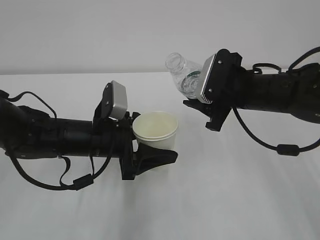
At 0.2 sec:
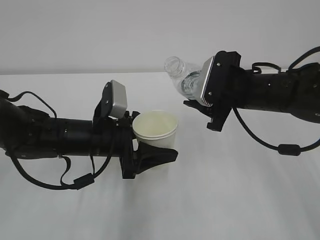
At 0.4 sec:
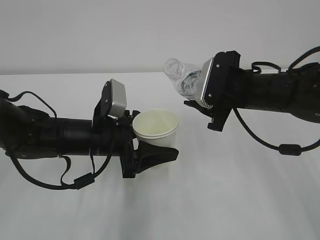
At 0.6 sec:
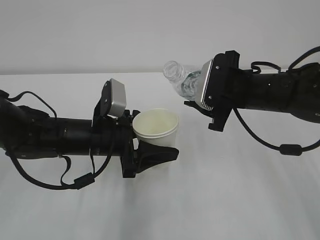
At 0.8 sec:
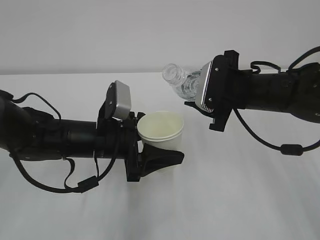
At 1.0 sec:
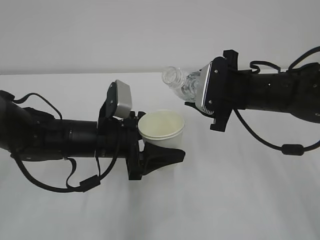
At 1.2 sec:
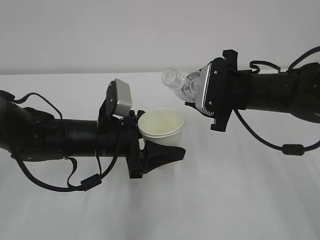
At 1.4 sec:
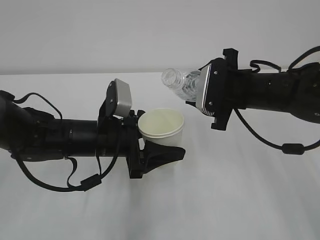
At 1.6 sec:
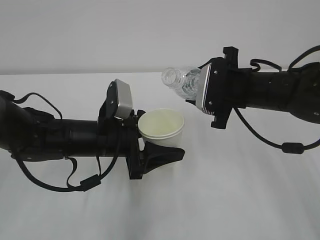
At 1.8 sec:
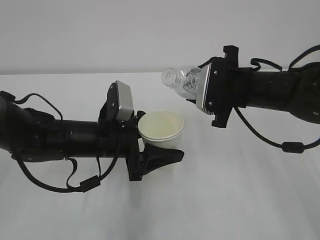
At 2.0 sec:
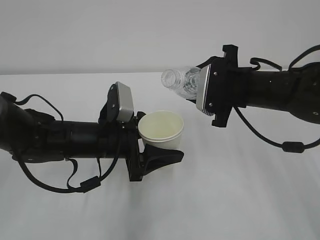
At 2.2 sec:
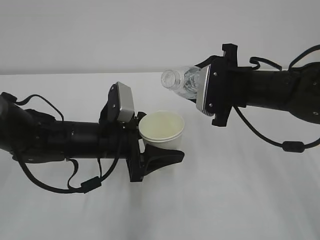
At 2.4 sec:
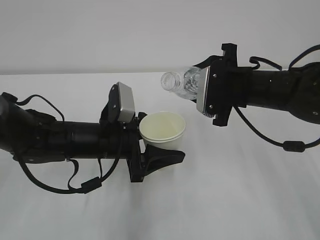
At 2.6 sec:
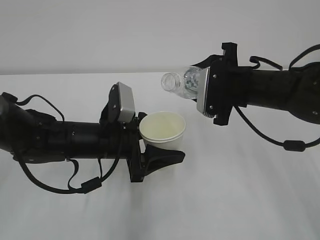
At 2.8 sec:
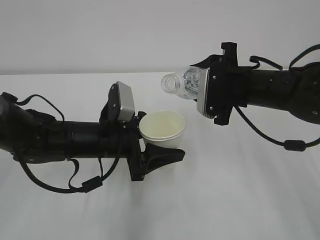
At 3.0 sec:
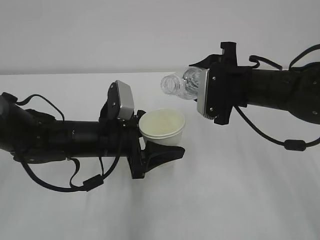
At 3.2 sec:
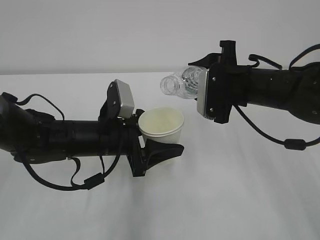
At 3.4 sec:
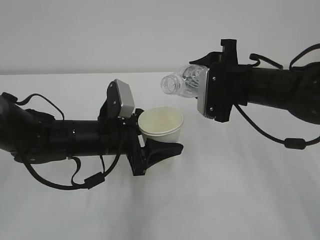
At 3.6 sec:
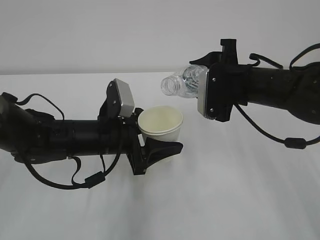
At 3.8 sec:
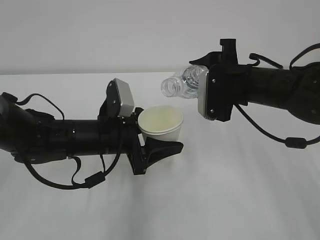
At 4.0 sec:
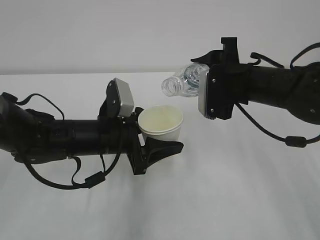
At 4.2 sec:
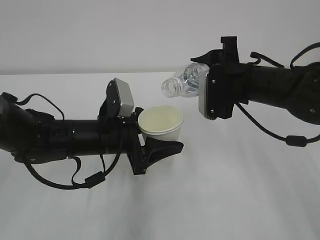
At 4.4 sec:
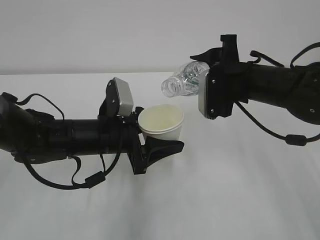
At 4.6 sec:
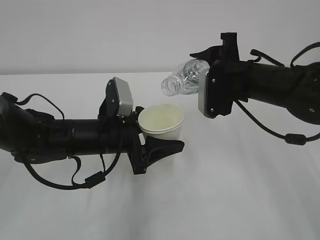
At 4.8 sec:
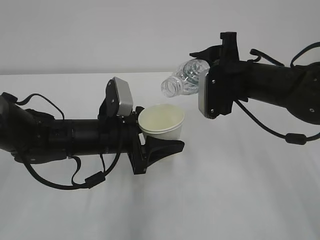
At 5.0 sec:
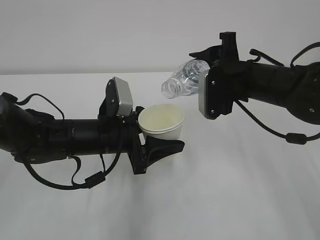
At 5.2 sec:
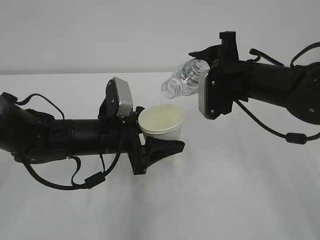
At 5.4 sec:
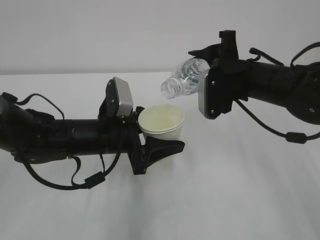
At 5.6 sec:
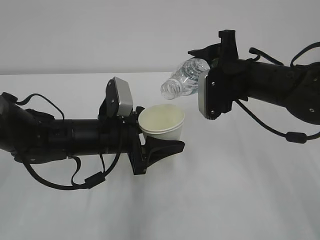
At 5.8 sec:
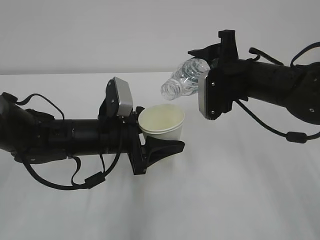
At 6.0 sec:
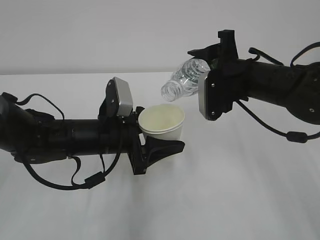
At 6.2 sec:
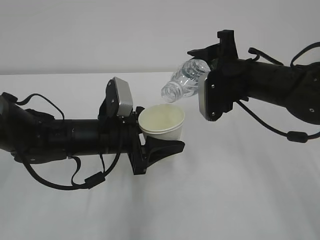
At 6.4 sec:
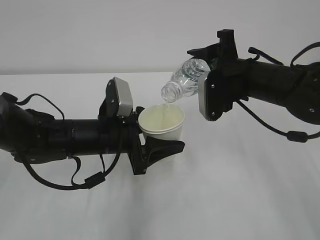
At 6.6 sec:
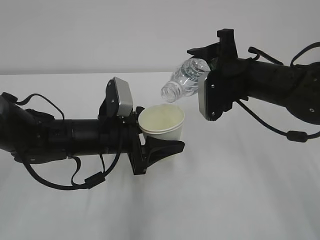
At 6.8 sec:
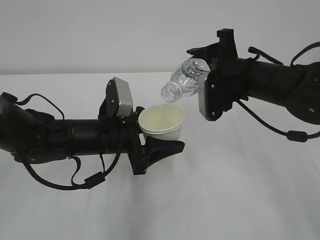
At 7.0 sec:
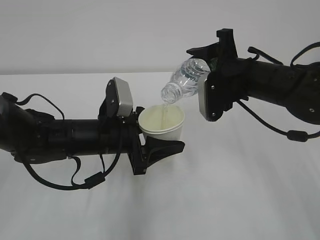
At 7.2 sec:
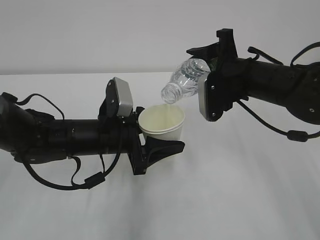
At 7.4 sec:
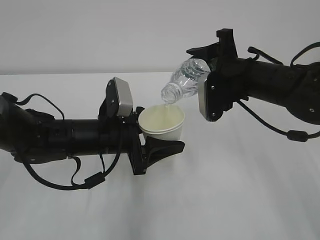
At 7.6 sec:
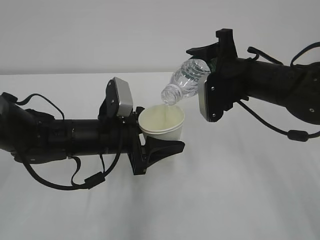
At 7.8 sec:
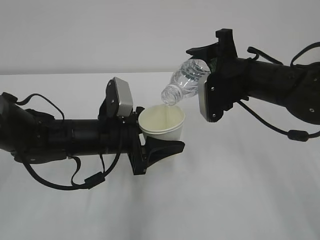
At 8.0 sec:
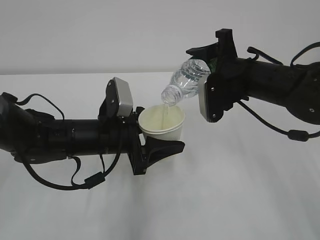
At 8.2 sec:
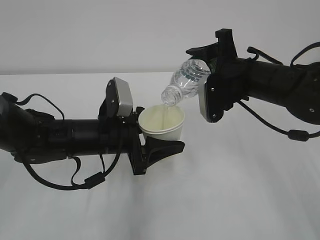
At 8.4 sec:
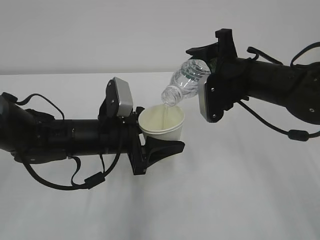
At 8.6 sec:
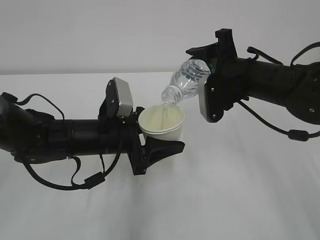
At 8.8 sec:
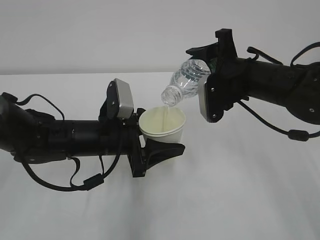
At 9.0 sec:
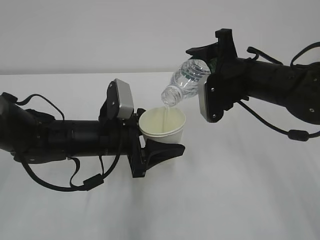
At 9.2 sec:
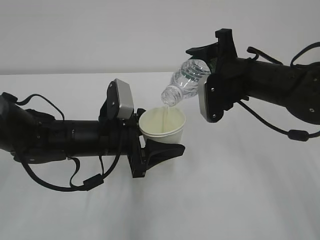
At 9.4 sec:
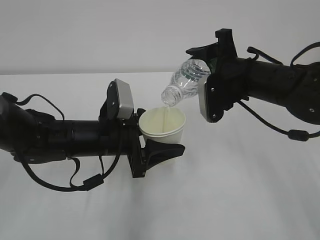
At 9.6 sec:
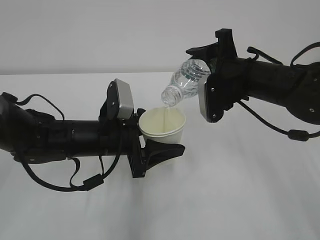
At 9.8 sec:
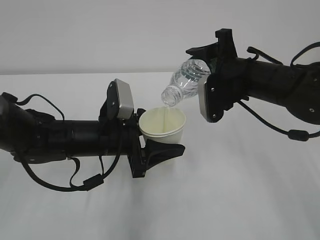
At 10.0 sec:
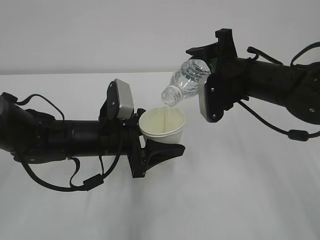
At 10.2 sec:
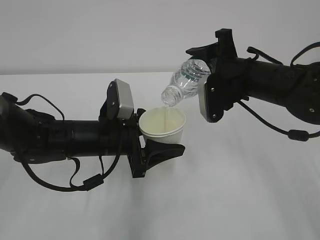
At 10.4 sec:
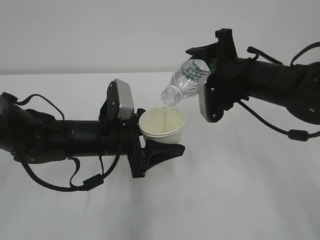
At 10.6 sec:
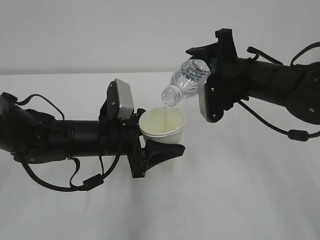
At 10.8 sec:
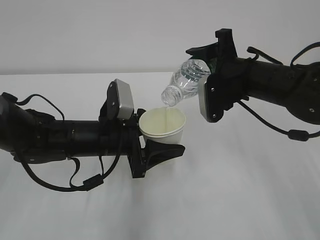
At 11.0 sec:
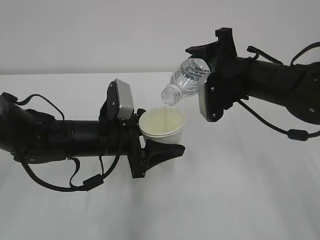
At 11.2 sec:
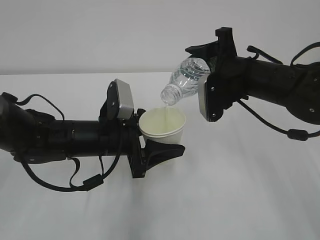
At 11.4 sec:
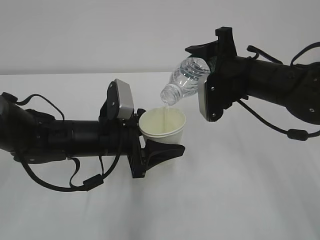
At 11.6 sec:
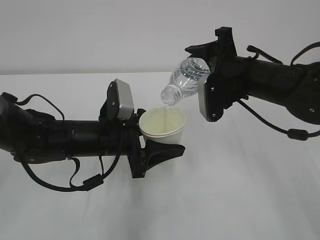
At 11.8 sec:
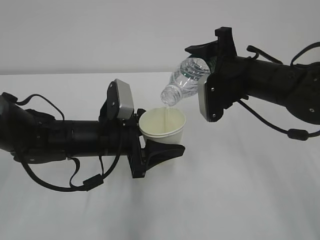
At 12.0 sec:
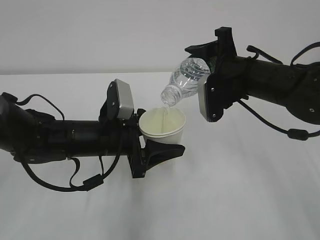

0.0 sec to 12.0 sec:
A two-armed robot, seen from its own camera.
0.0 sec to 1.6 sec: The grippers stay close to where they were, moving slightly.
1.6 sec to 3.0 sec: The grippers stay close to where they were, moving slightly.
3.0 sec to 6.0 sec: The grippers make only small movements.
6.0 sec to 7.6 sec: Both grippers stay about where they are.
7.6 sec to 12.0 sec: Both grippers stay about where they are.

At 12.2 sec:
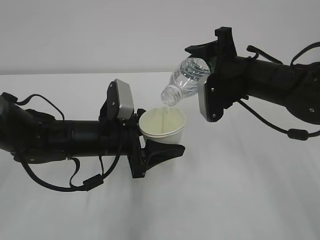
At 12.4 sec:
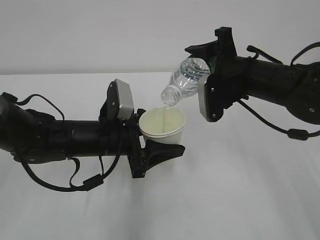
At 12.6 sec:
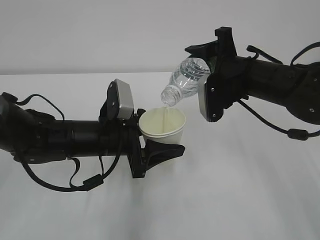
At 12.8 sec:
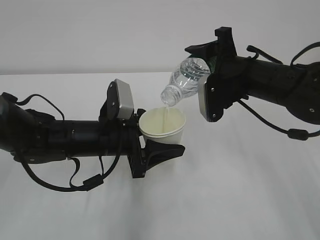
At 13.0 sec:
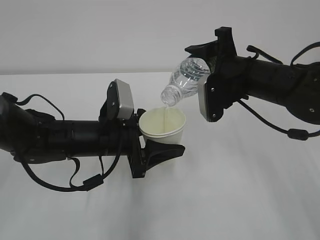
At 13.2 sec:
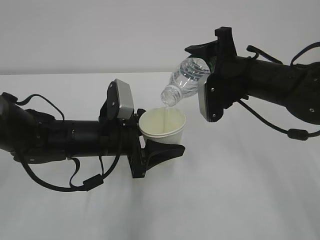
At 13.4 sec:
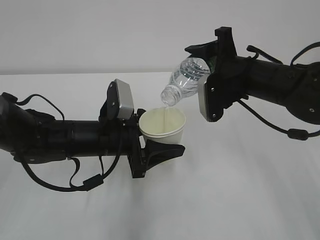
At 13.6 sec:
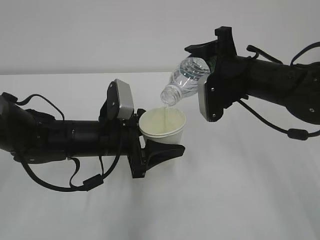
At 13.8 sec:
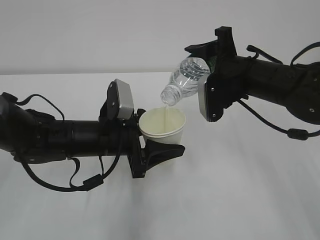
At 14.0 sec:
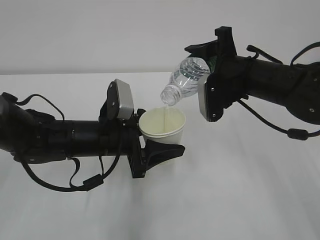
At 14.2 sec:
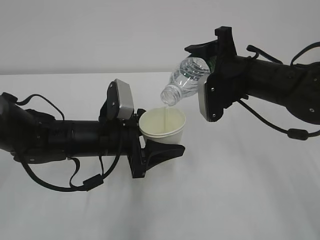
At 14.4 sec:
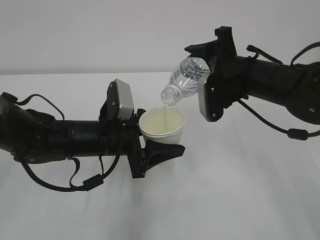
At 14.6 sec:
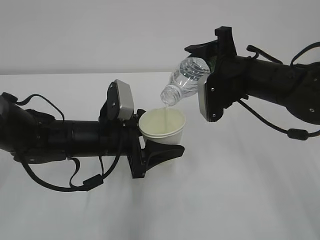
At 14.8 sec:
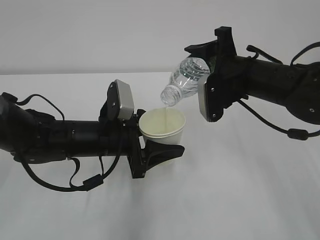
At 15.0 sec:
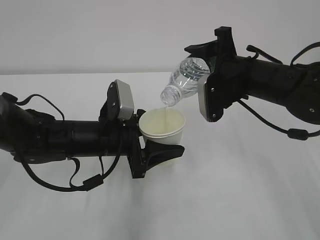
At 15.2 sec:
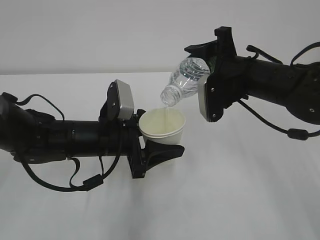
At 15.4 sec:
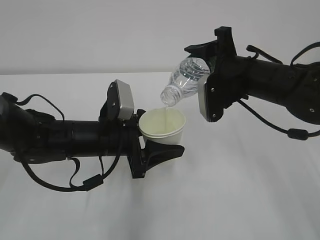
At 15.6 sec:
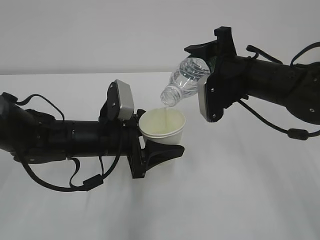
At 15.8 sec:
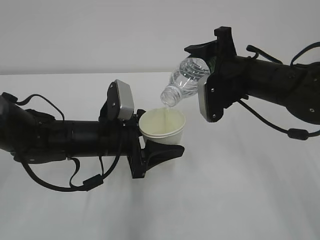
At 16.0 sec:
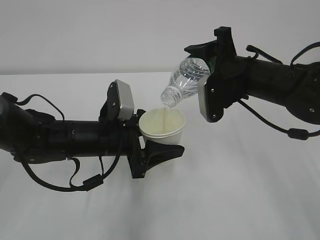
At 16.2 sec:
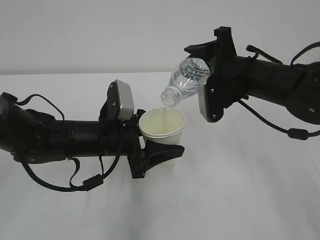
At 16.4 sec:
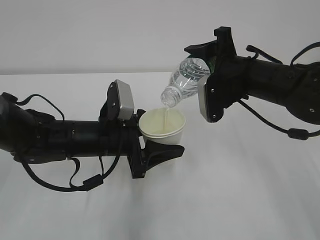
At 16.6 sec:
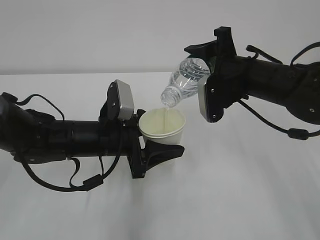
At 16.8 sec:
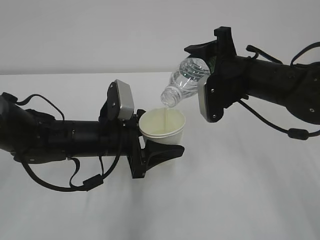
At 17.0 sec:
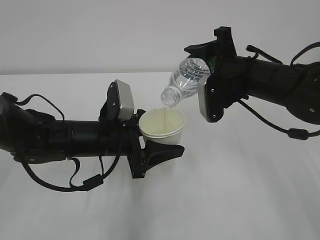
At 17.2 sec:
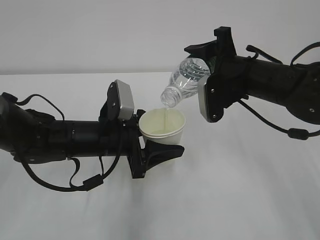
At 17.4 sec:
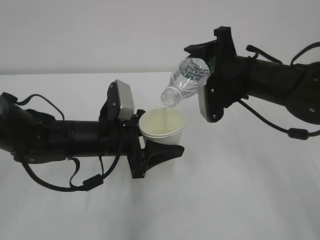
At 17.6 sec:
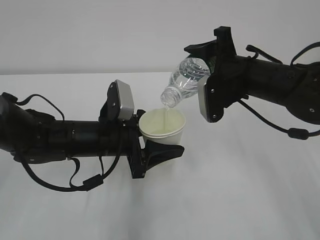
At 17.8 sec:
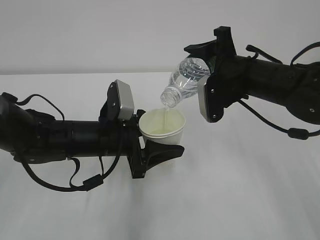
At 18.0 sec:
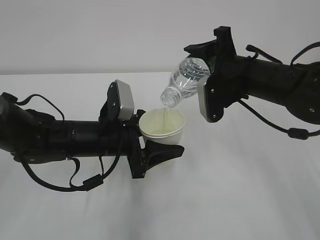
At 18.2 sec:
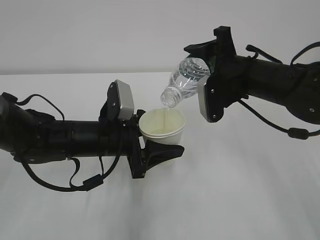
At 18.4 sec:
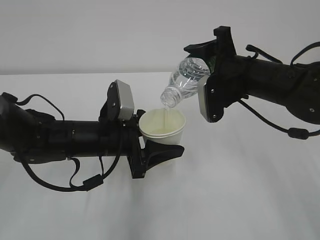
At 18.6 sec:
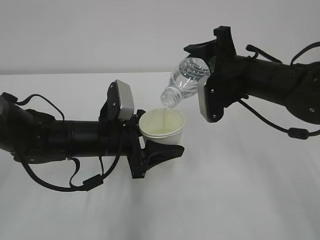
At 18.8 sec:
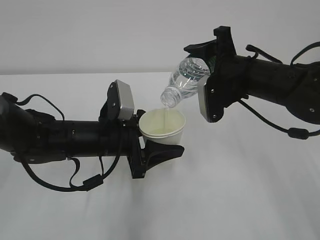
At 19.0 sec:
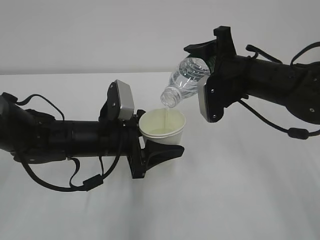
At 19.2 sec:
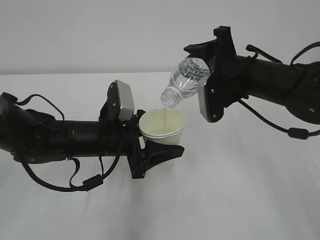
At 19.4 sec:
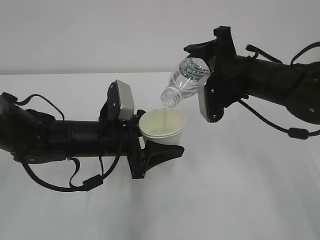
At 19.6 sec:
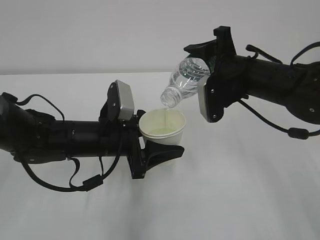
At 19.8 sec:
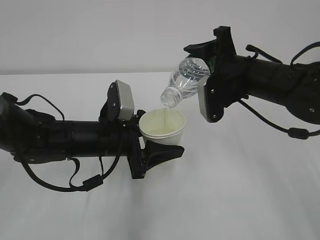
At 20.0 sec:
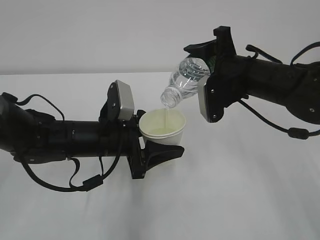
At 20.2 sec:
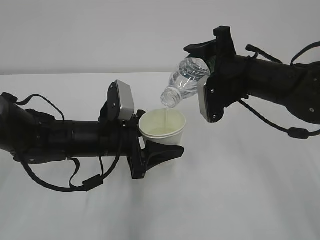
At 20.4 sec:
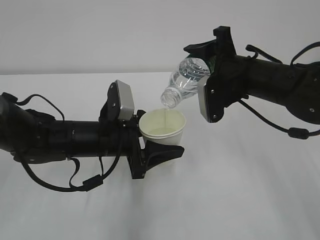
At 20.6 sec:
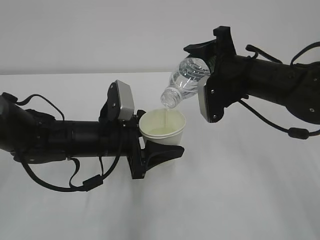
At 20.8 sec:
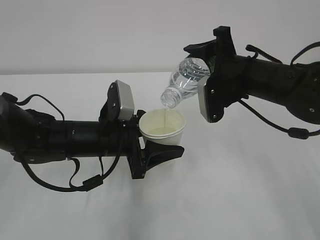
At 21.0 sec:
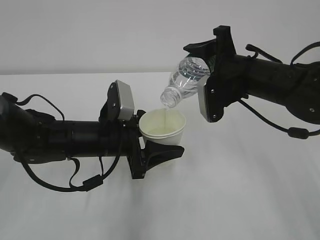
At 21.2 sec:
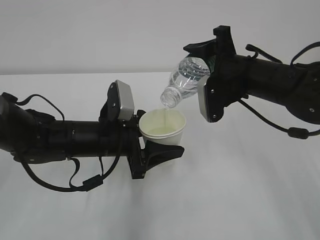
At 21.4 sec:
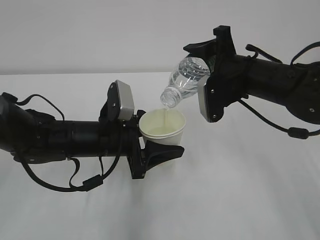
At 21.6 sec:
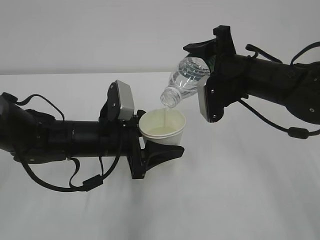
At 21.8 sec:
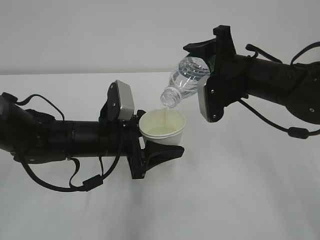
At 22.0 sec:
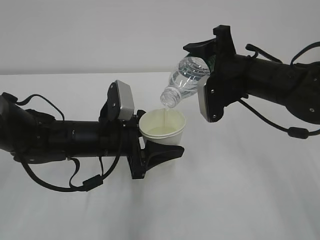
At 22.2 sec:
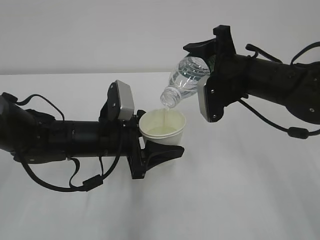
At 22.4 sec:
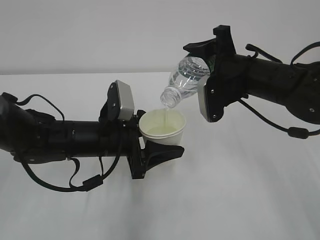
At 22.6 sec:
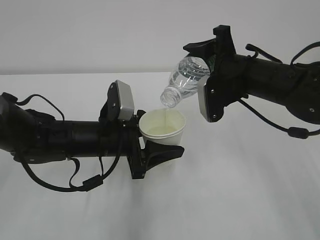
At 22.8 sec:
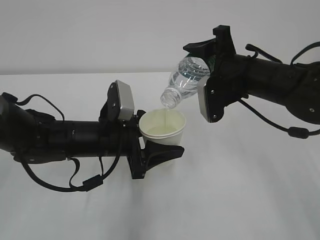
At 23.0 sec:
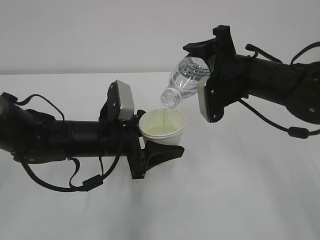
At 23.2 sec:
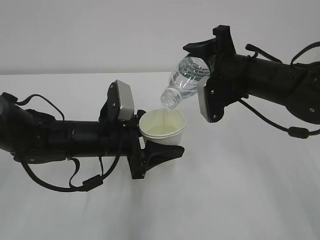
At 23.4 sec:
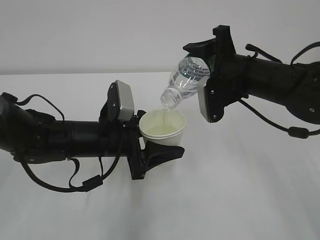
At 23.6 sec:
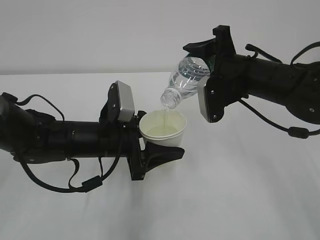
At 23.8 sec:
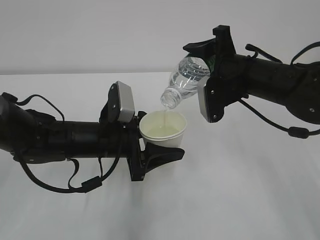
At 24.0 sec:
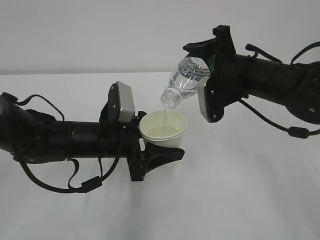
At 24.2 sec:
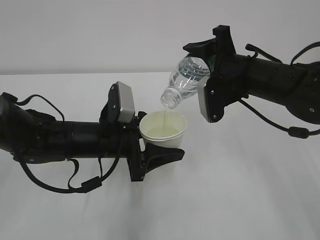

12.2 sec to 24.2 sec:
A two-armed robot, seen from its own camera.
12.2 sec to 24.2 sec: Neither gripper changes place.
